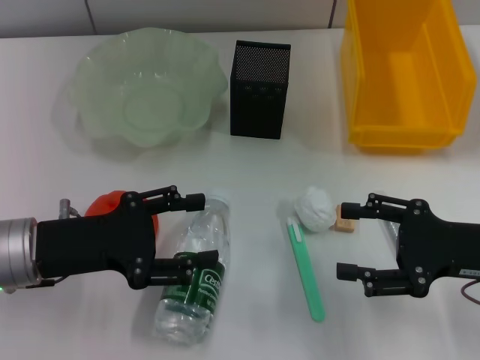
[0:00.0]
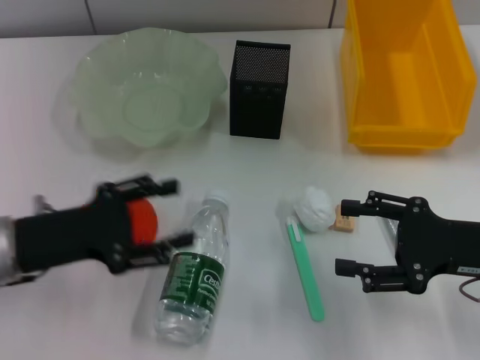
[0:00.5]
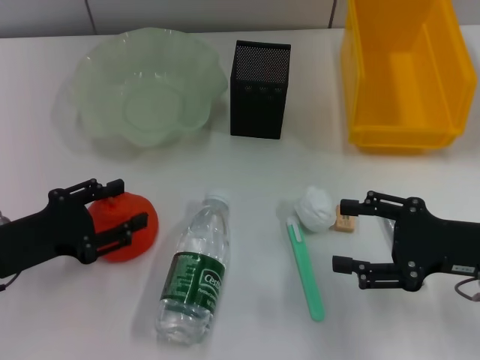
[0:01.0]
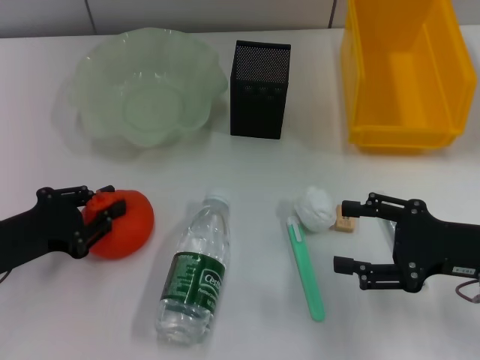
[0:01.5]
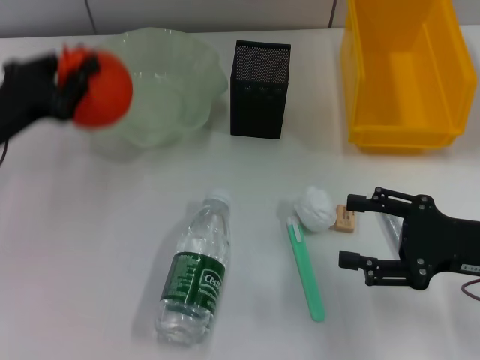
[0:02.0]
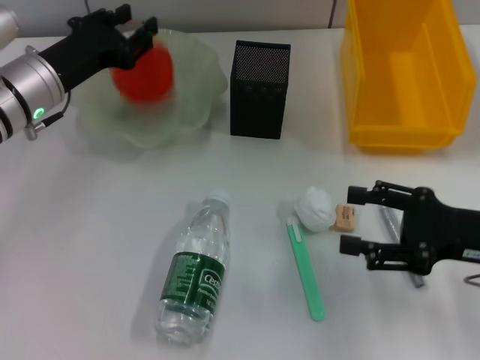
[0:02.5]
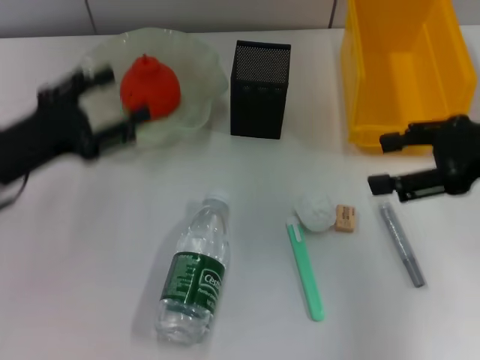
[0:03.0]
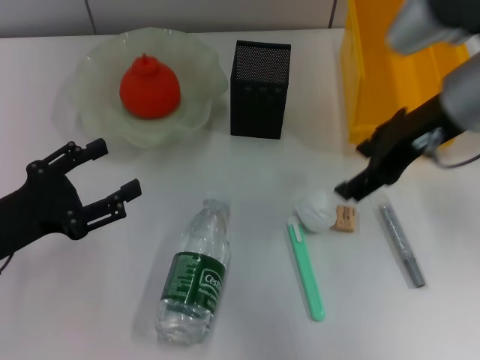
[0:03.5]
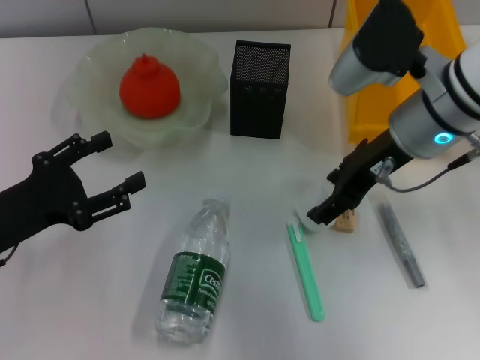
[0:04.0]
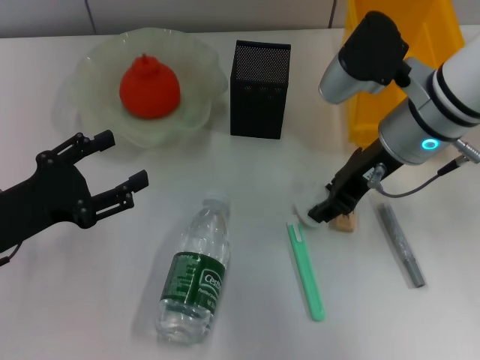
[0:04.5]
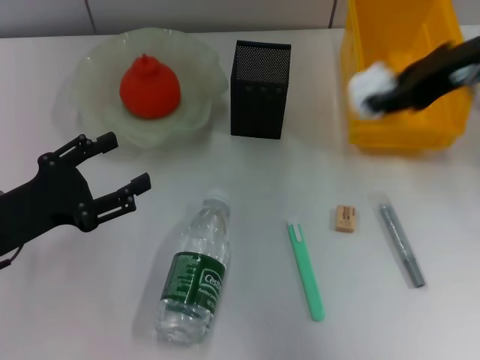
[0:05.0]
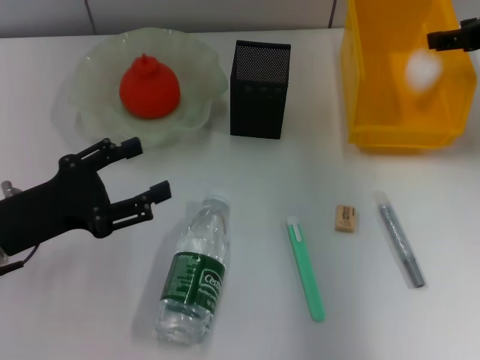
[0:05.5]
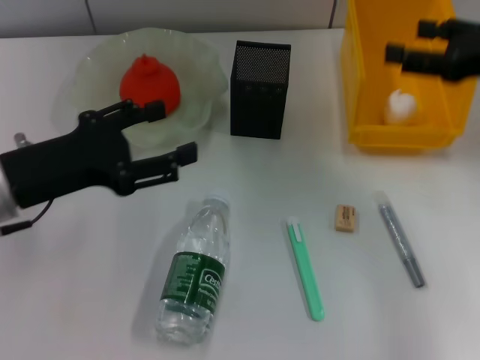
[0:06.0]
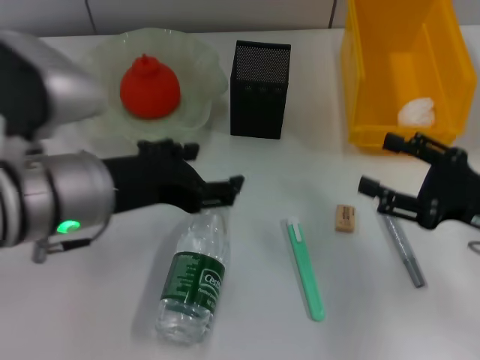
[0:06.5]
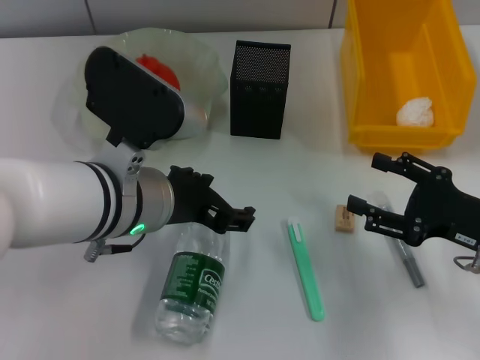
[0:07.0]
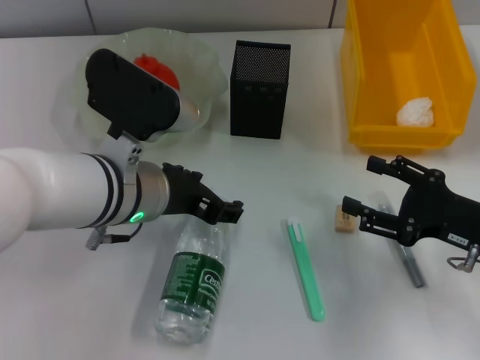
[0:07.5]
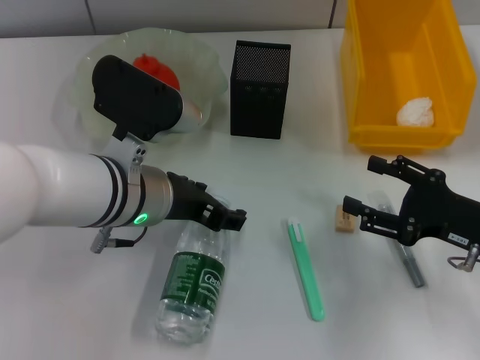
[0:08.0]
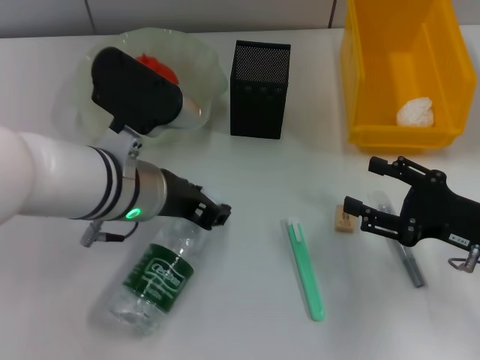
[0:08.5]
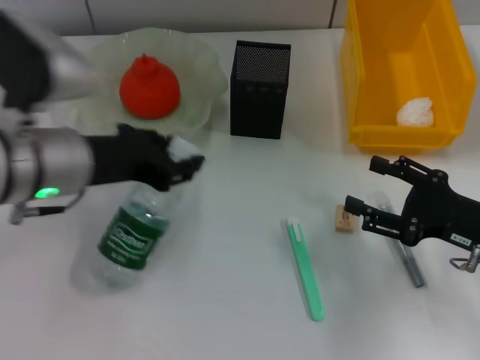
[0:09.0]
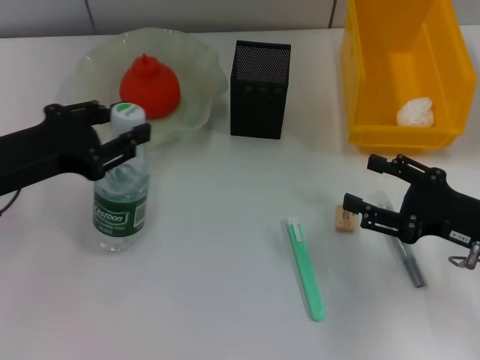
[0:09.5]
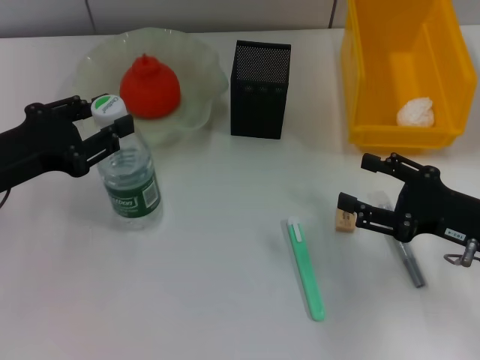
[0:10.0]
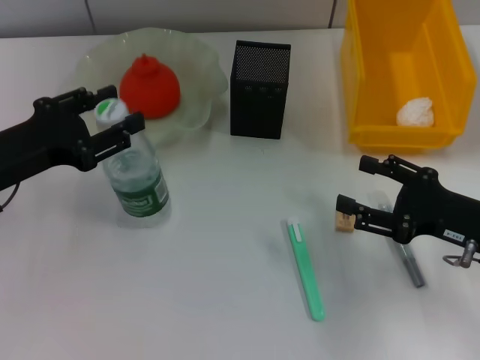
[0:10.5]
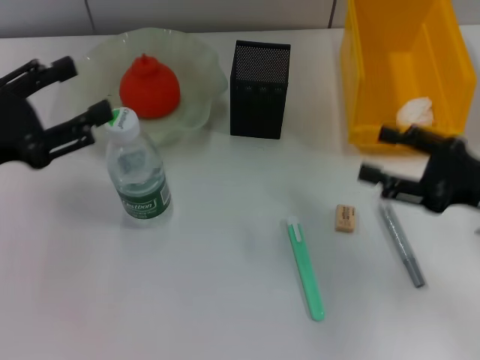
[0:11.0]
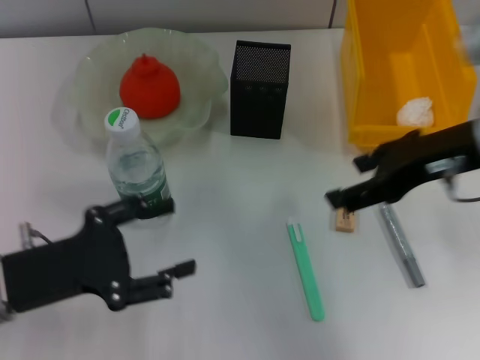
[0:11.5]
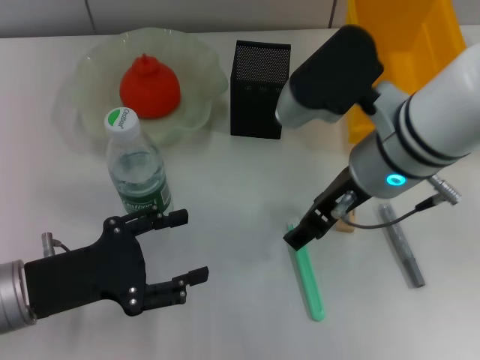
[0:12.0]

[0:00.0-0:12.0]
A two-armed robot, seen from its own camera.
Step, 0:00.0 to 0:01.0: Grab the orange with the left hand.
Step, 0:01.5 to 0:02.5: Place the orange into the fruit bowl with the left hand.
Step, 0:03.0 to 0:04.0: Grab the paper ball with the right hand.
Step, 0:04.5 to 0:05.5: Place the paper ball into the trash can with the right hand.
Step, 0:06.5 to 0:08.0: Grab the water bottle with the left hand.
Step, 0:08.5 to 0:10.5: Place the water bottle on the table with the left hand.
0:00.0 to 0:02.0: The left gripper shifts about 5 cm forward, and closes up.
0:02.0 to 0:04.0: The left gripper goes approximately 10 cm backward, and opens its fingers. The right gripper travels to the left, forward and upward by approximately 20 cm.
0:04.0 to 0:06.0: The left gripper heads upward, covering roughly 5 cm; the right gripper goes some 15 cm to the right, and closes, then reopens.
0:06.0 to 0:08.0: The left gripper moves to the right, approximately 15 cm. Meanwhile the right gripper shifts about 15 cm downward and backward.
0:08.0 to 0:10.0: The left gripper goes roughly 15 cm to the left, and closes its fingers.
0:10.0 to 0:12.0: The right gripper travels to the left and upward by about 20 cm; the left gripper heads downward and backward, covering approximately 10 cm, and opens its fingers.

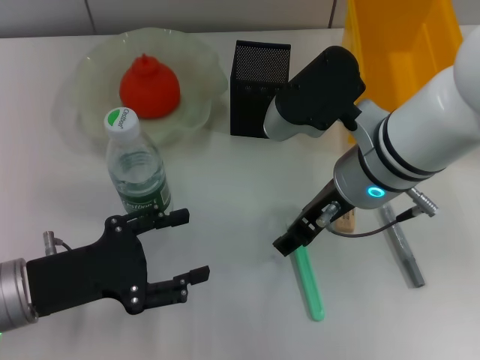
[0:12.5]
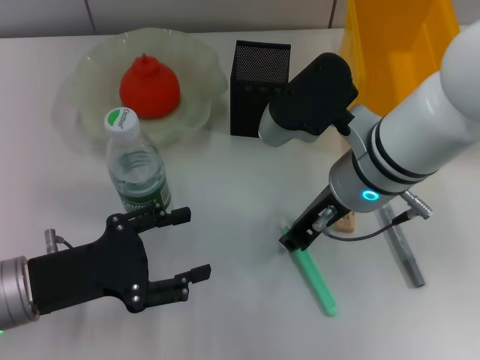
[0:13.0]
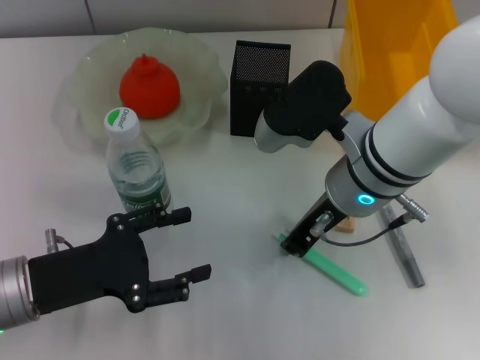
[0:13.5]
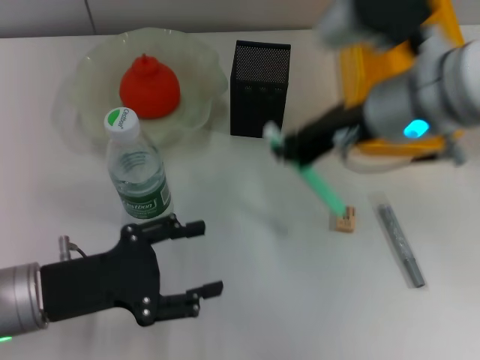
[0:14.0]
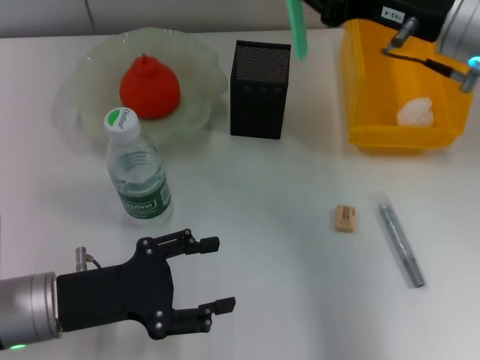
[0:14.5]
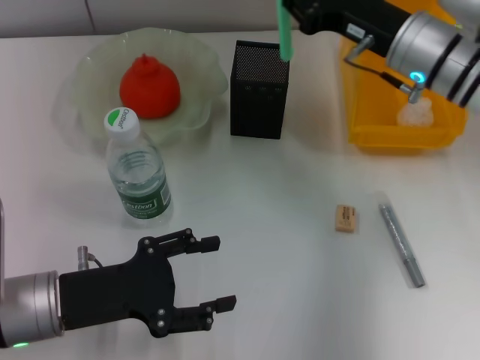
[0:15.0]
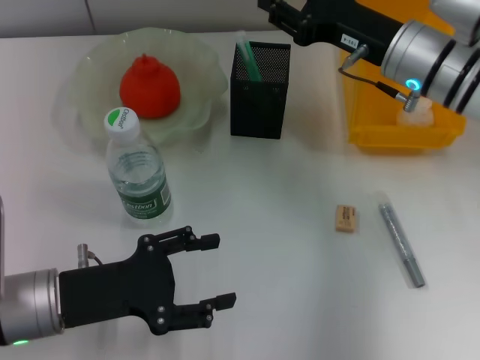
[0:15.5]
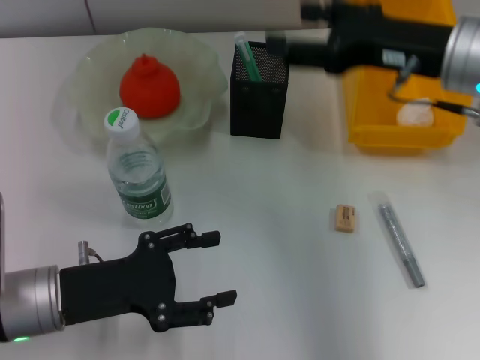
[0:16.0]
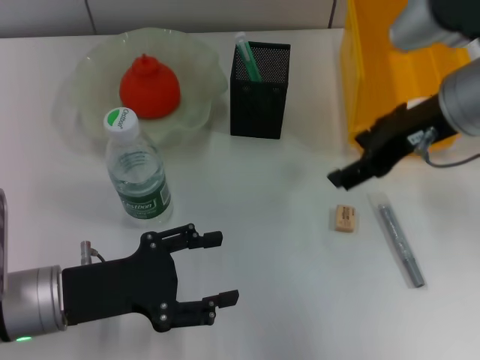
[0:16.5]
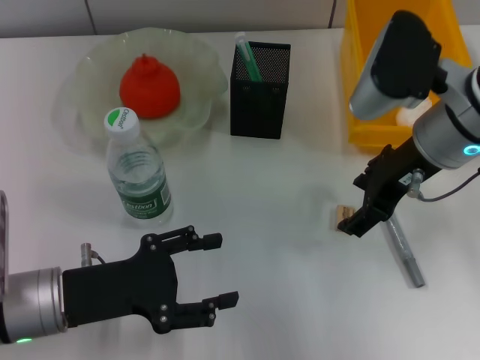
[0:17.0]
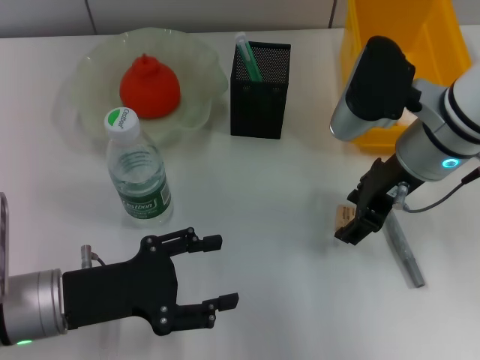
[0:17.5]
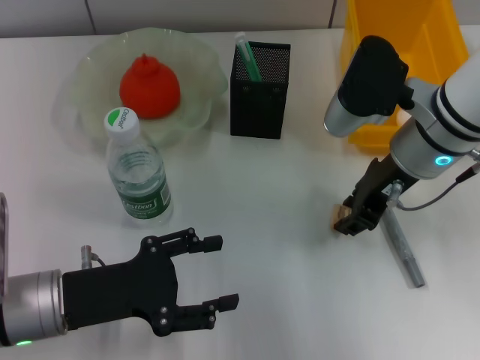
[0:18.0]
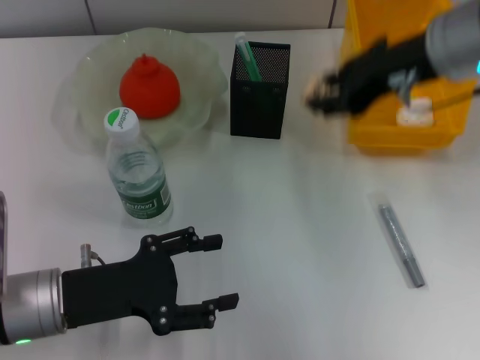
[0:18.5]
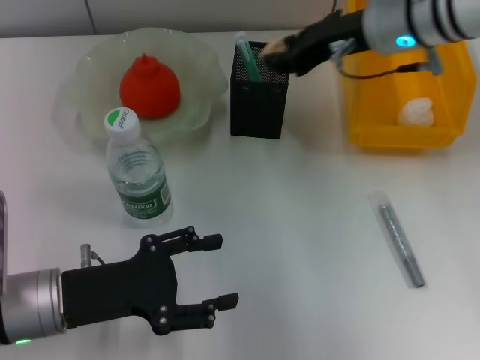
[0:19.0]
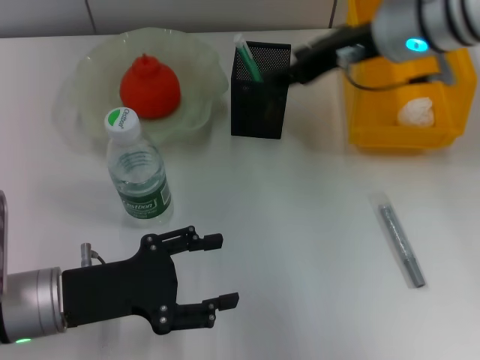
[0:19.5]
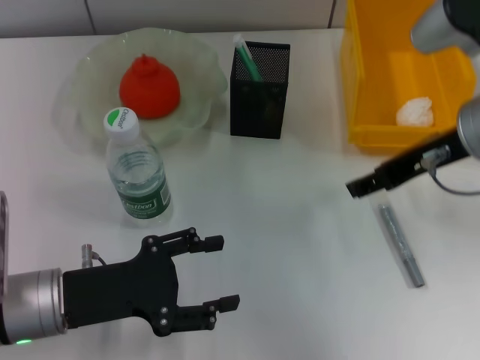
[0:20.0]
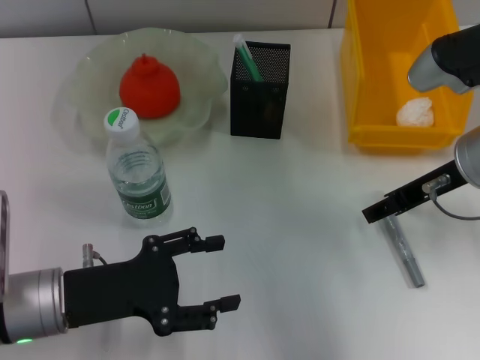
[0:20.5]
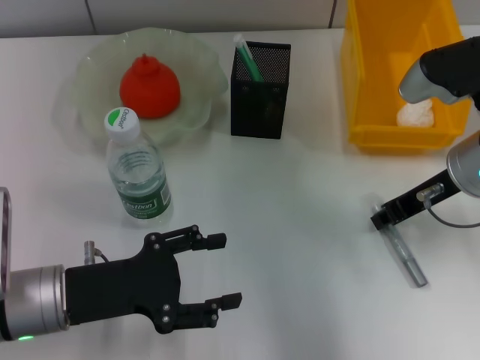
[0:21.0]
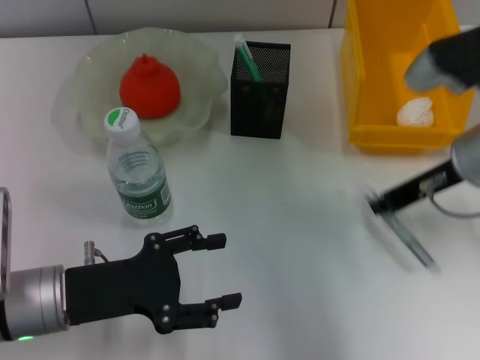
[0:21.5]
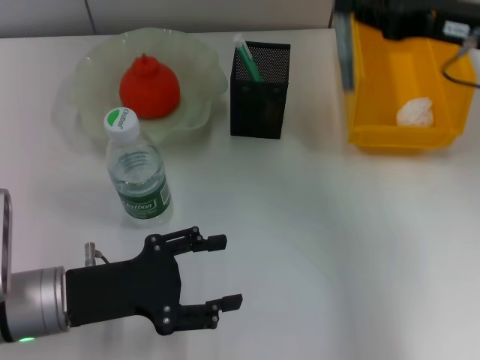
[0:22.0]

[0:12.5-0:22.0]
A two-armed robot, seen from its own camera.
Step, 0:13.5 to 0:15.5: Place the blue utility knife into the pen holder with the right hand.
Step, 0:16.0 to 0:17.5: Grab the eraser with the right hand.
Step, 0:18.0 to 0:19.5: Put the eraser into the pen holder with the right hand.
Step, 0:20.0 to 0:21.0: Grab the gray glue with the right hand.
0:12.5 to 0:14.5: The right gripper moves to the right and upward, roughly 10 cm, and closes up.
0:14.5 to 0:16.5: The right gripper opens.
0:16.5 to 0:18.0: The right gripper heads downward, covering about 5 cm, and closes its fingers.
0:20.0 to 0:22.0: The right gripper moves some 5 cm, and closes up.

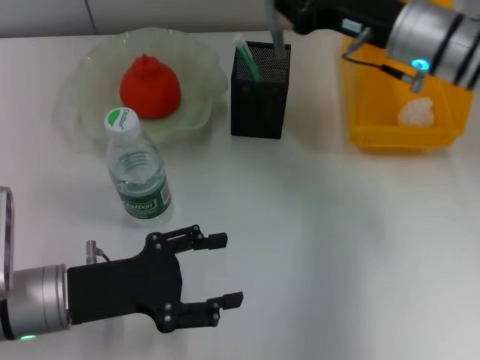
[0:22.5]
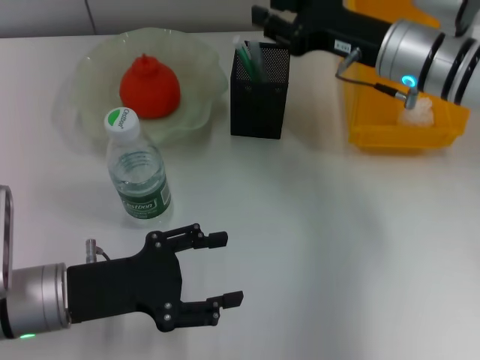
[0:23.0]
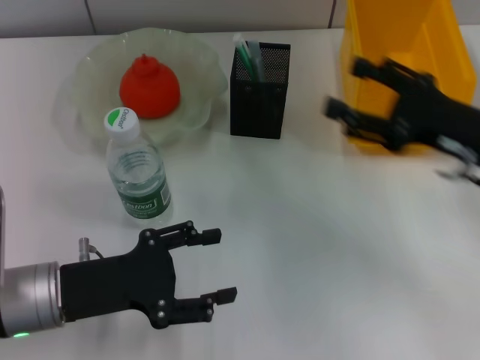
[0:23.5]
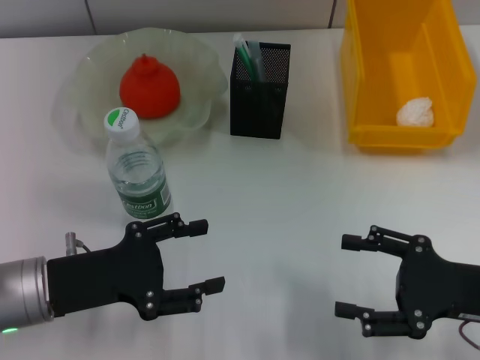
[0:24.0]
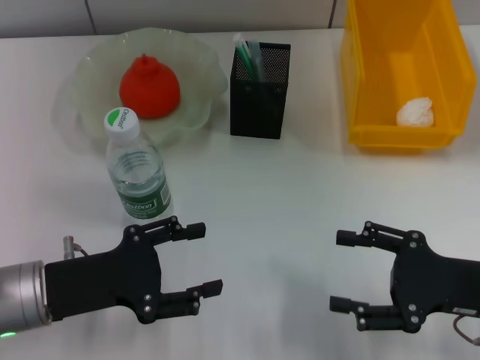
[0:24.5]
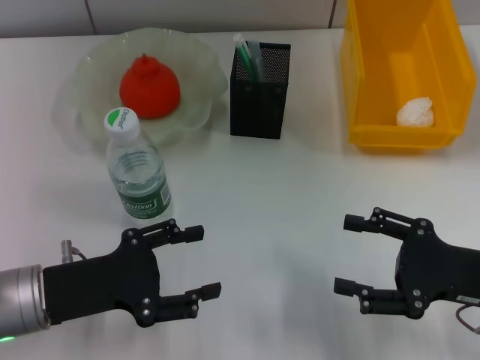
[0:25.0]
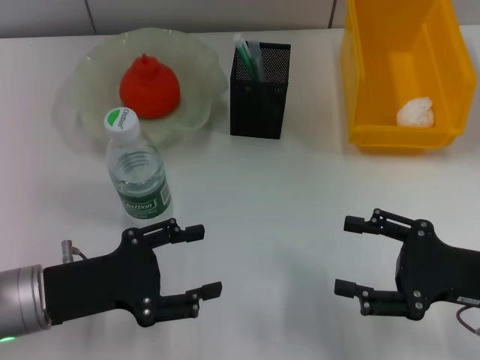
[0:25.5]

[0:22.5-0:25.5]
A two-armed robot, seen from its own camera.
0:22.5 to 0:24.0: The right gripper goes roughly 25 cm backward, to the right and downward, and opens its fingers.
0:24.0 to 0:25.5: Neither gripper changes place.
